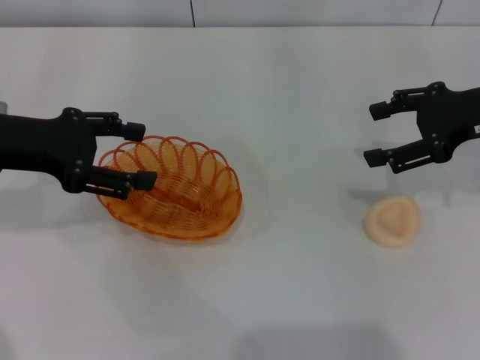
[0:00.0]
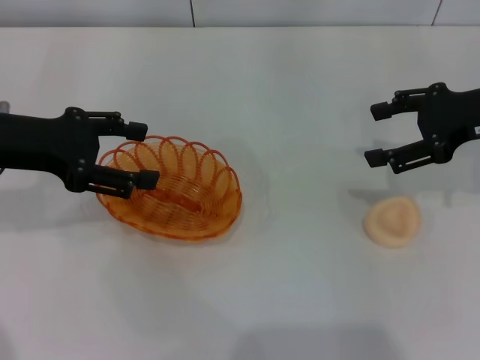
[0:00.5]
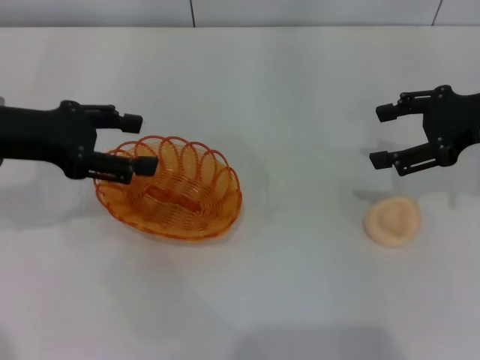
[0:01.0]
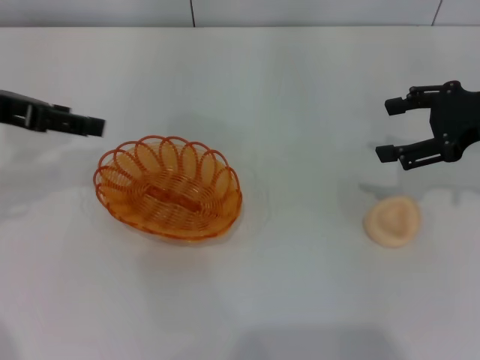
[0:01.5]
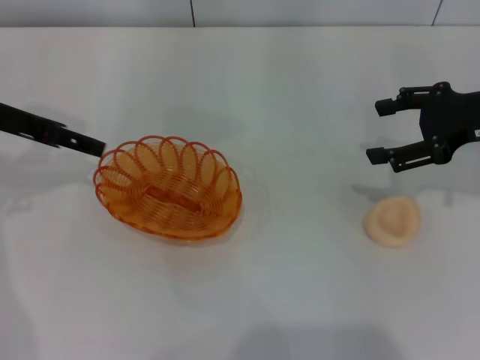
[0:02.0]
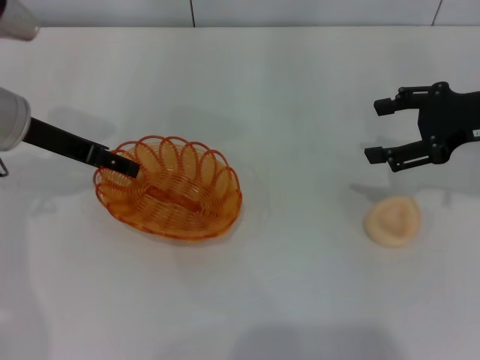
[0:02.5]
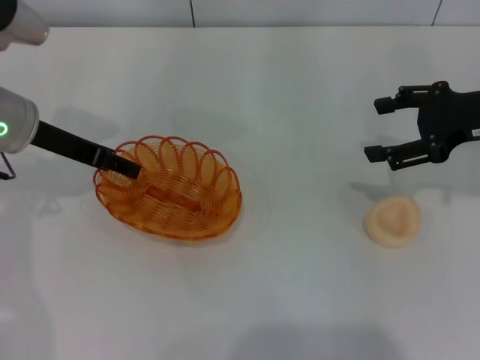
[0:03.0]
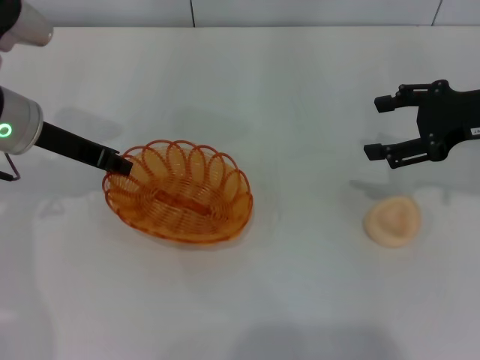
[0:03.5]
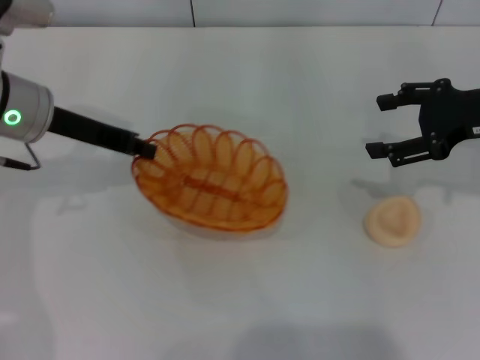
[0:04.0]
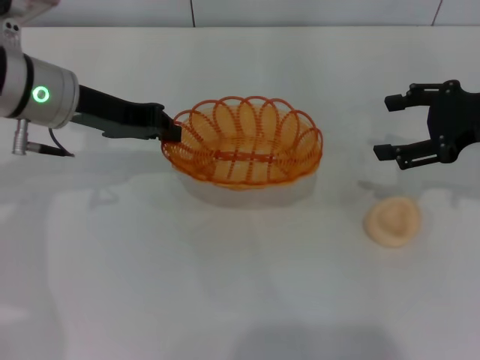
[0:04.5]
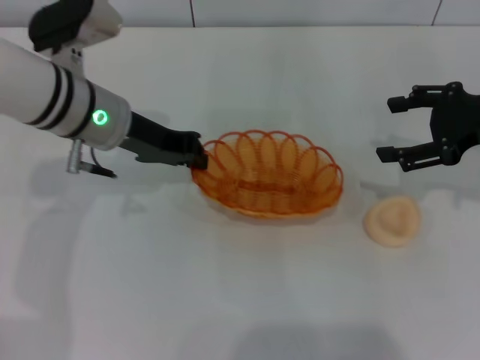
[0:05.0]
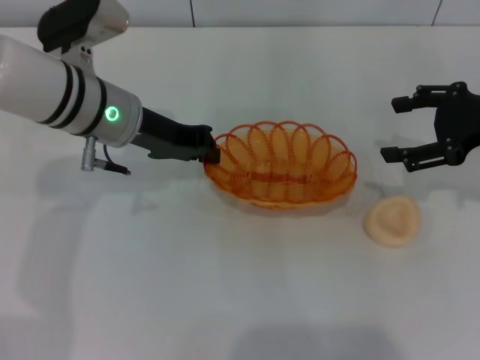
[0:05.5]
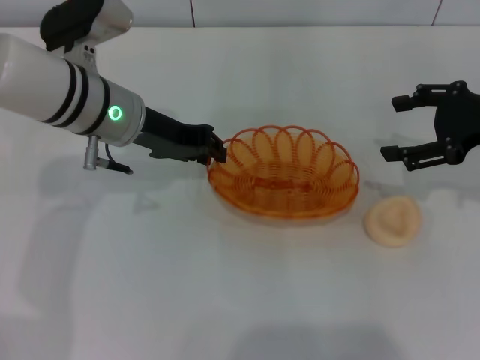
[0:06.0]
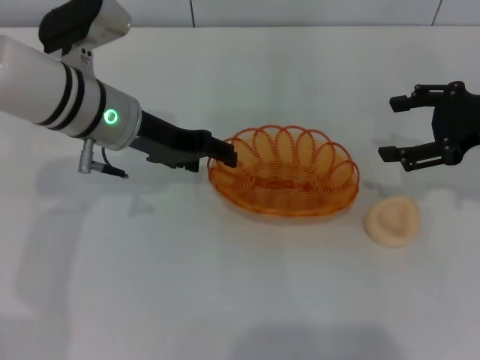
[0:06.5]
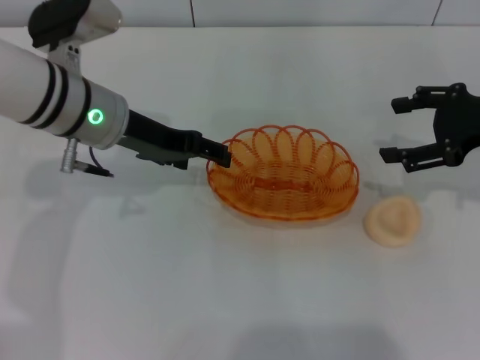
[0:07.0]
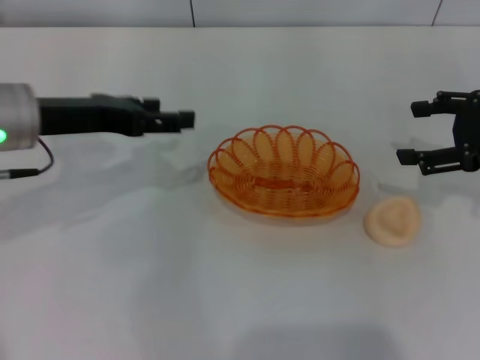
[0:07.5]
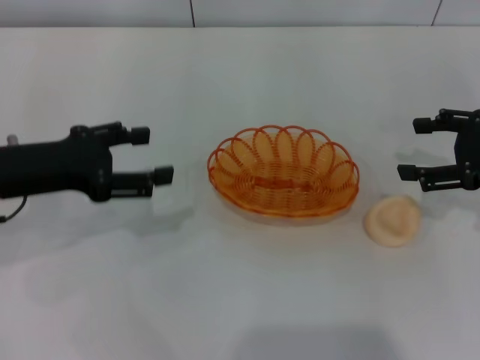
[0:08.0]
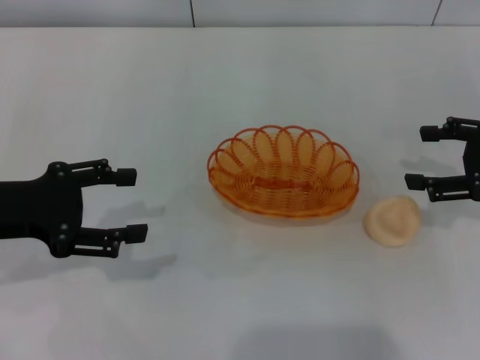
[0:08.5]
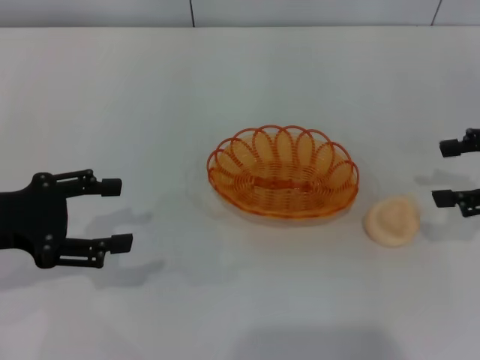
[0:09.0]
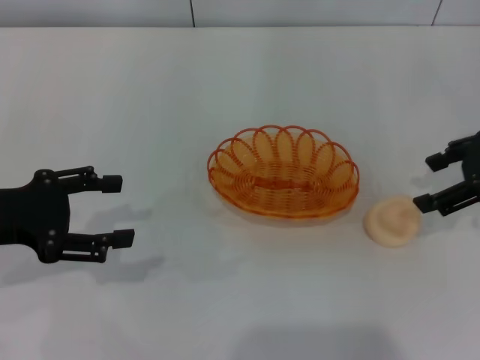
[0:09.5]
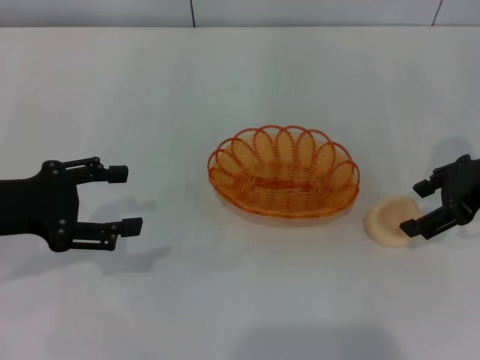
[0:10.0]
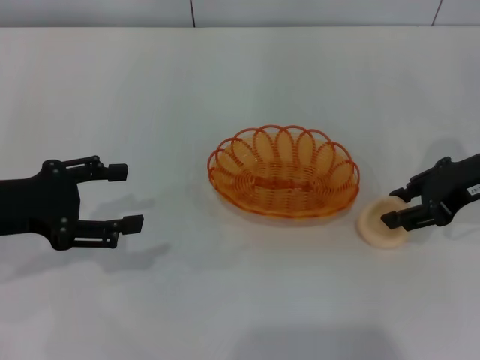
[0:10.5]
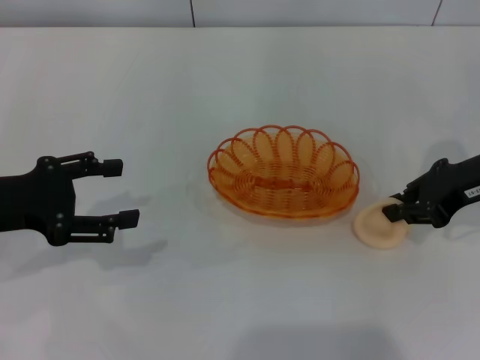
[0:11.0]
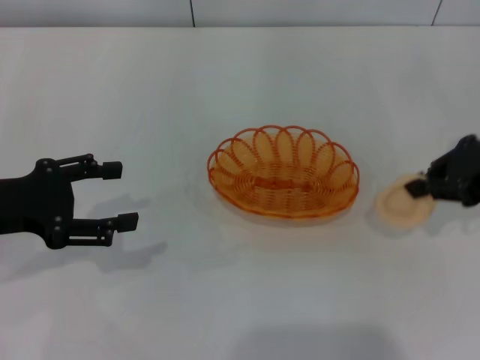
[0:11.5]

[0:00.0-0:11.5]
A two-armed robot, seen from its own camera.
Step, 0:00.0 to 0:04.0: Pick up the basket with the left gripper.
Step, 0:04.5 to 0:07.0: Place the basket in the center of view with the left gripper.
0:02.0 to 0:04.0: The left gripper goes roughly 5 cm to the right, and closes up.
0:04.0 to 0:06.0: The left gripper goes roughly 10 cm to the right.
0:06.0 to 0:07.5: The left gripper goes some 10 cm to the left, and opens.
0:07.5 to 0:09.5: The left gripper goes roughly 10 cm backward and to the left.
0:09.5 to 0:11.5: The right gripper closes its fingers.

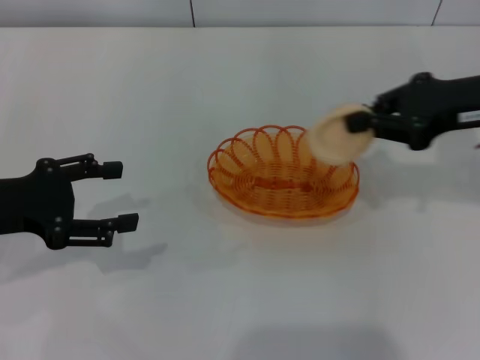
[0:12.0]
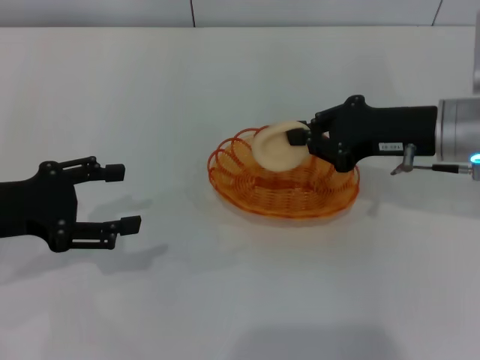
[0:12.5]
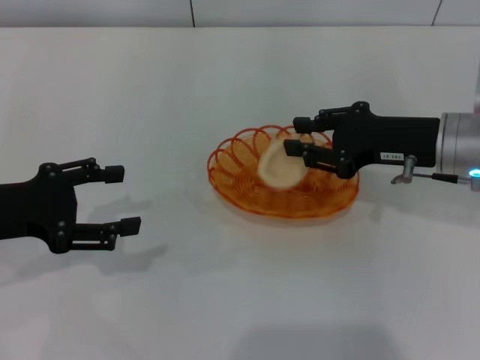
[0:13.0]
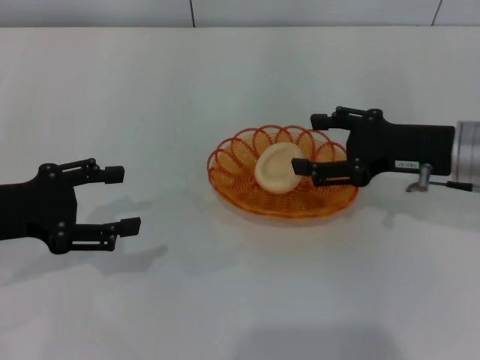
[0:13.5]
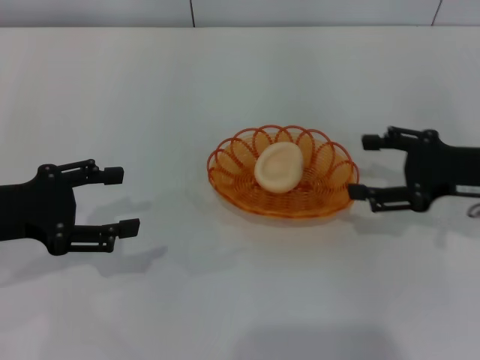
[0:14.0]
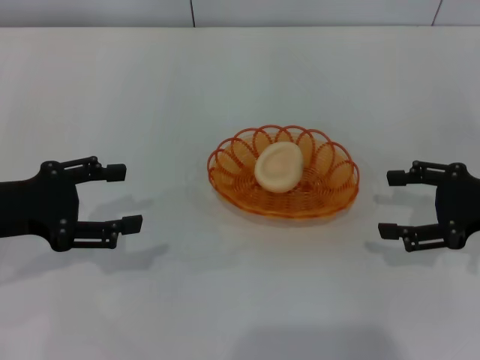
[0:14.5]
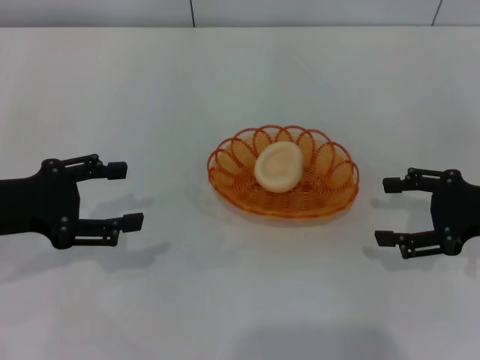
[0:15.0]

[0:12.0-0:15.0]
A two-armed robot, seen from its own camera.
Step, 0:12.0 to 0:14.0: Place the egg yolk pastry into the basket with the right gripper.
0:12.0 to 0:13.5: The right gripper shifts some 10 cm downward, and opens up.
0:13.5 to 0:15.0: The right gripper is displaced to the right by roughly 10 cm, and opens its fingers.
